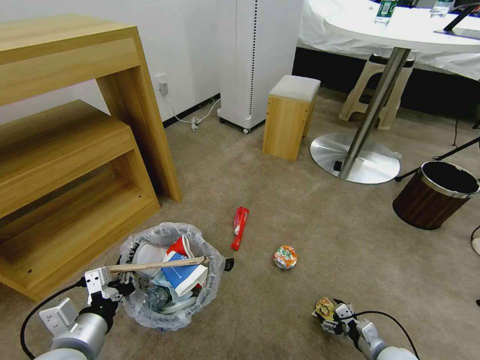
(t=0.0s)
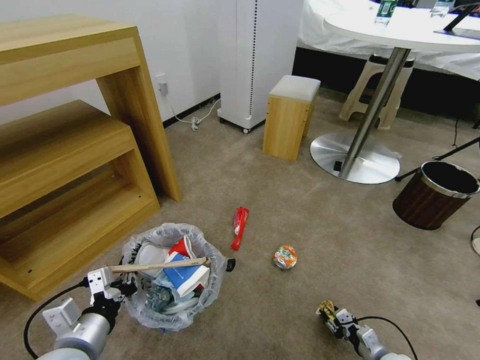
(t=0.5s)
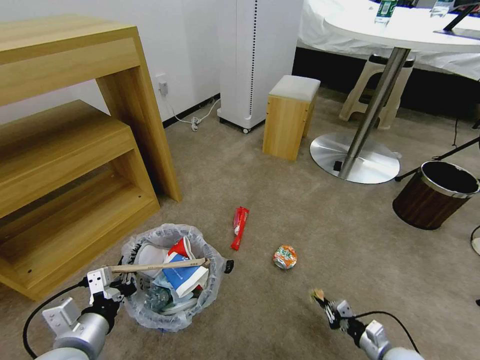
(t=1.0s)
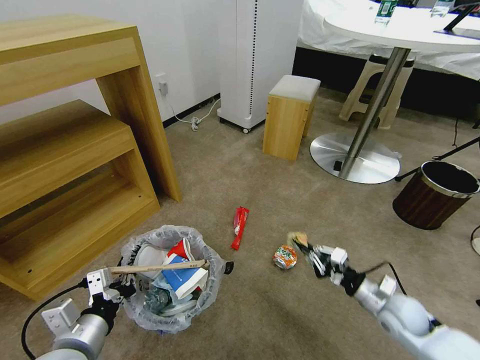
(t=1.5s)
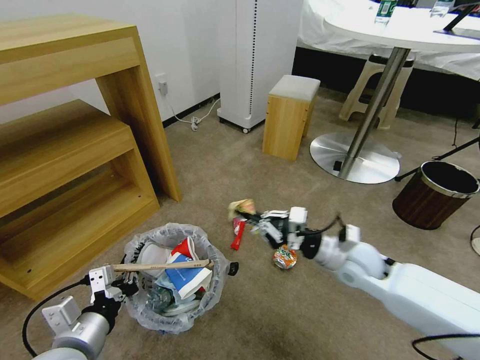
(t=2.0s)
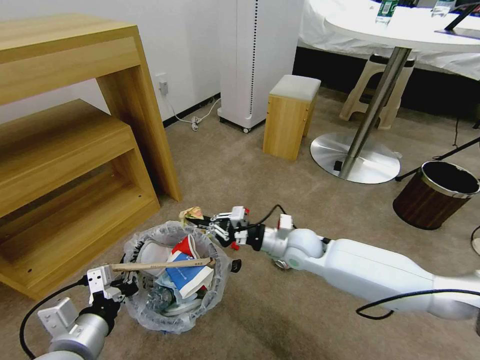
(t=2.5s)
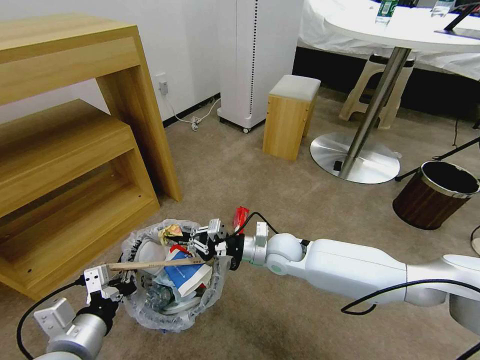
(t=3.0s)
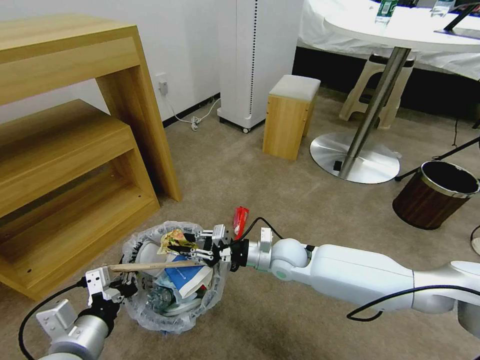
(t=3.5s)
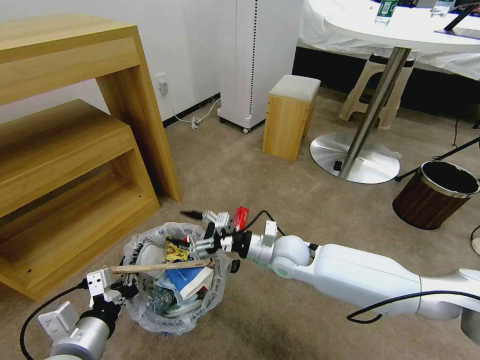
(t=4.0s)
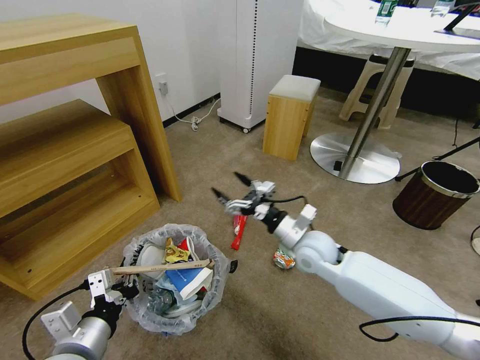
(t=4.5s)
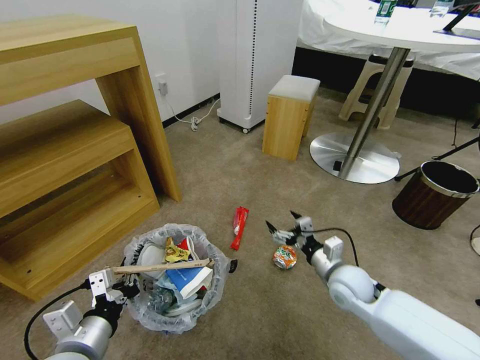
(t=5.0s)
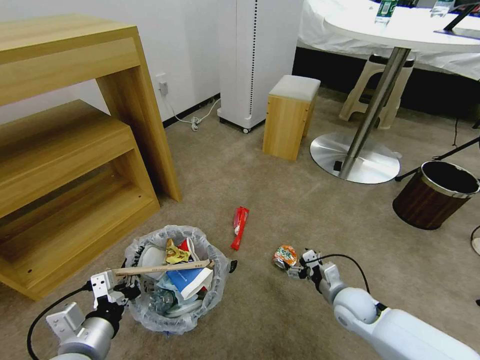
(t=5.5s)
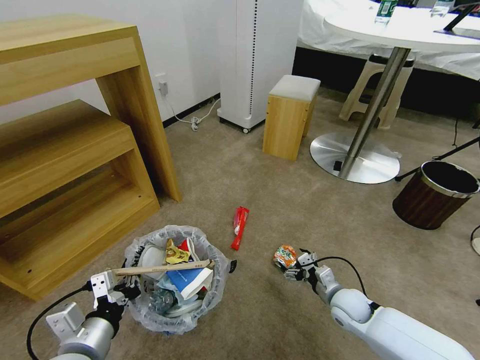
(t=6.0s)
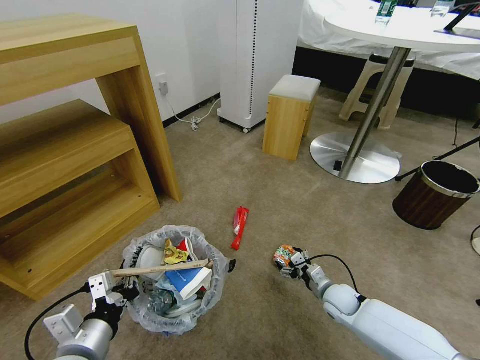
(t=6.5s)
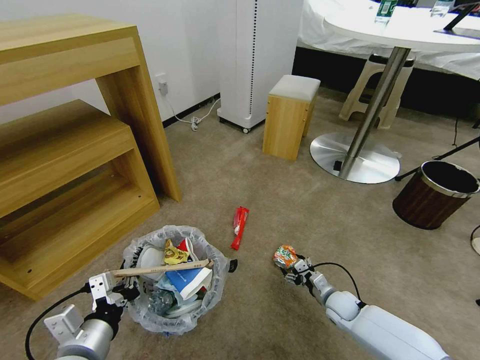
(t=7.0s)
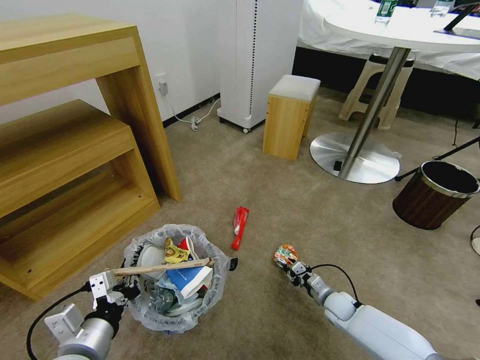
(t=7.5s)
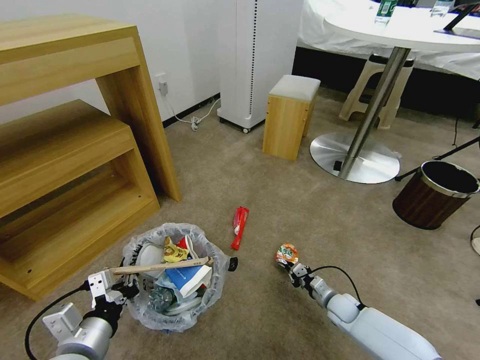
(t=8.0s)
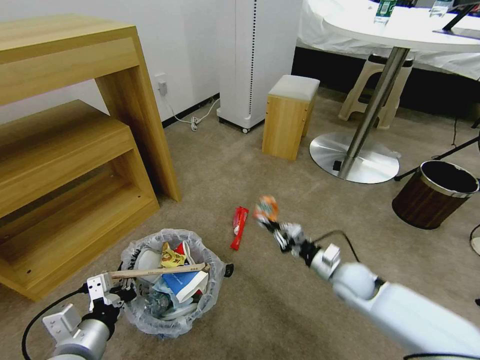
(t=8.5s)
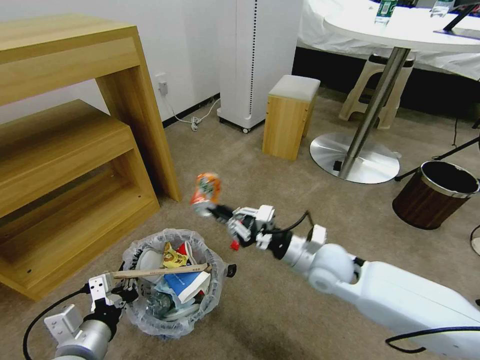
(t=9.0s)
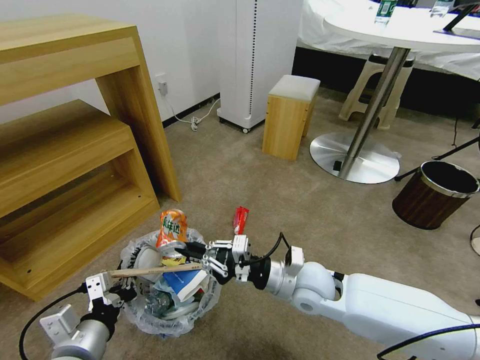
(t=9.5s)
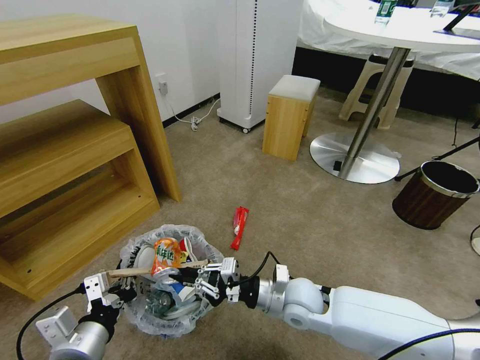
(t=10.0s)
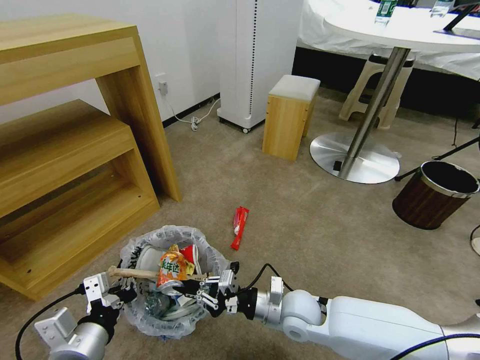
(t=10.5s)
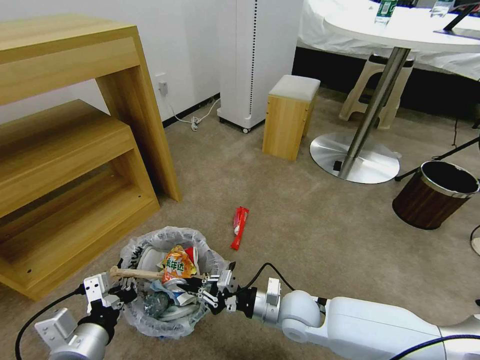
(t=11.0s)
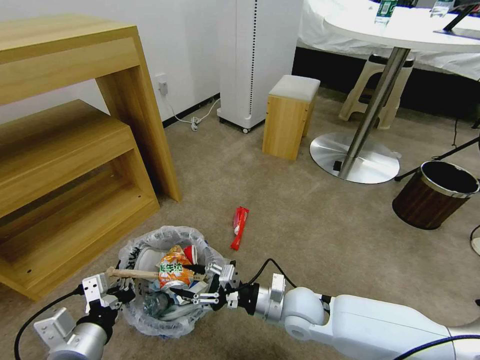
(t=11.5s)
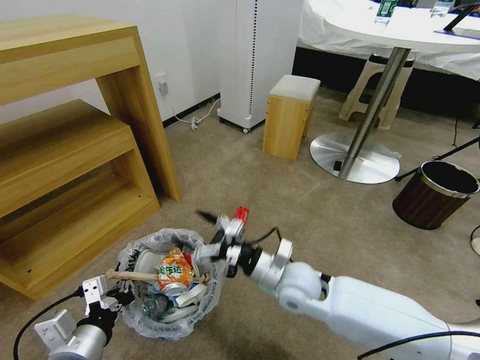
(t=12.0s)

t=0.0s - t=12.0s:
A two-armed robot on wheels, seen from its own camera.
Task of the whole recording: Pick up the trash bin and place the garbage on the floor into it.
t=0.0s - t=2.0s: The right gripper shifts approximately 35 cm upward, forward and to the left, and closes its fingers.
t=2.0s - t=4.0s: The right gripper moves to the left, approximately 15 cm, and opens its fingers.
t=4.0s - t=6.0s: The right gripper shifts roughly 25 cm to the right, downward and backward.
t=6.0s - t=8.0s: The right gripper travels downward by approximately 10 cm, and closes.
t=8.0s - t=10.0s: The right gripper goes about 30 cm upward and to the left.
t=10.0s - t=12.0s: The right gripper opens its fingers.

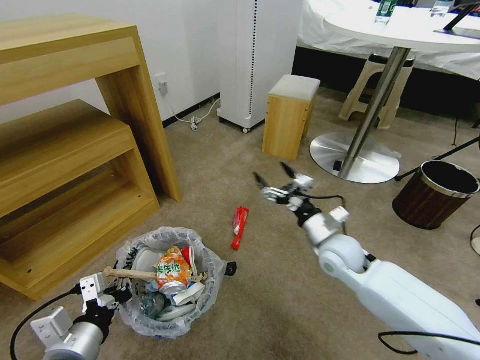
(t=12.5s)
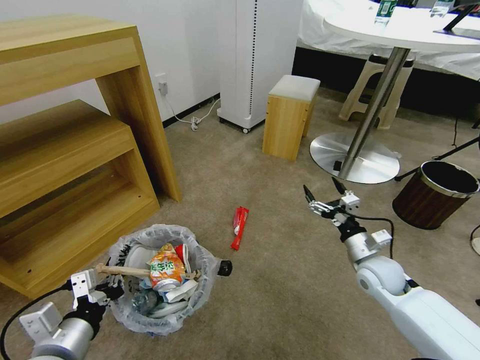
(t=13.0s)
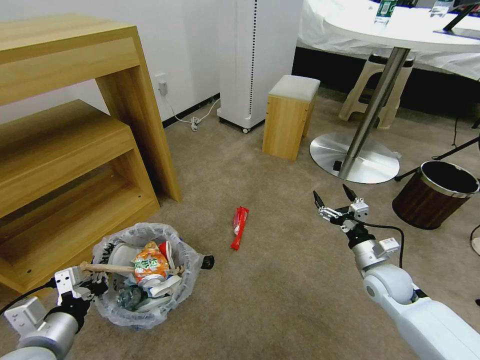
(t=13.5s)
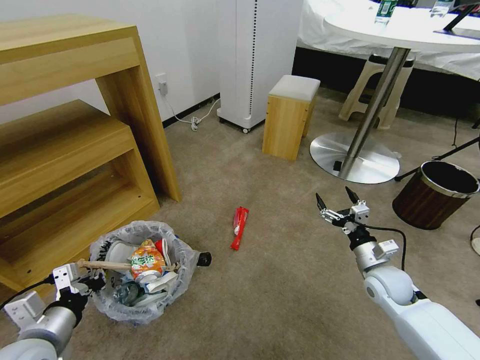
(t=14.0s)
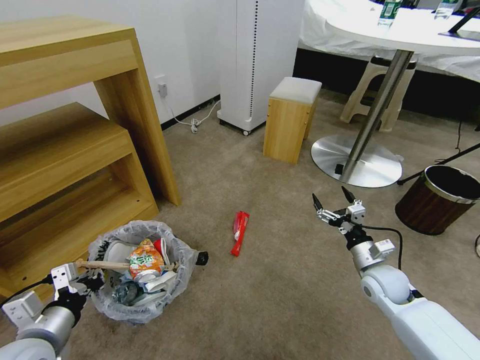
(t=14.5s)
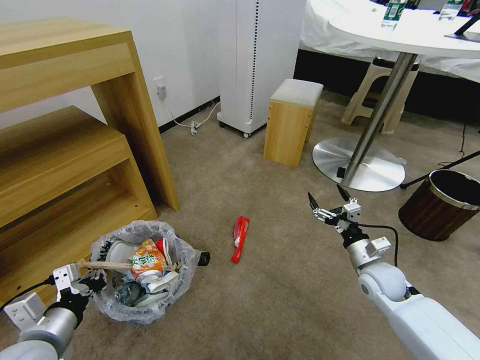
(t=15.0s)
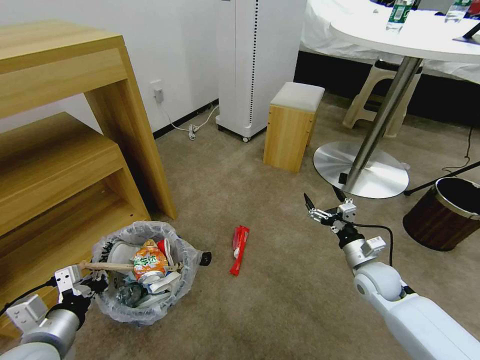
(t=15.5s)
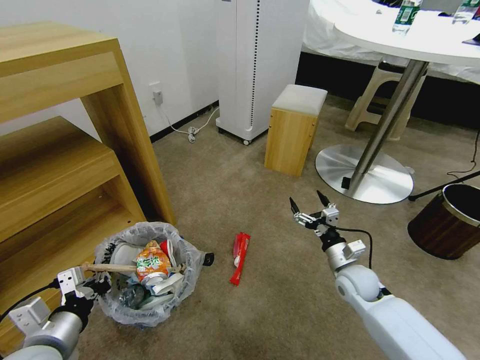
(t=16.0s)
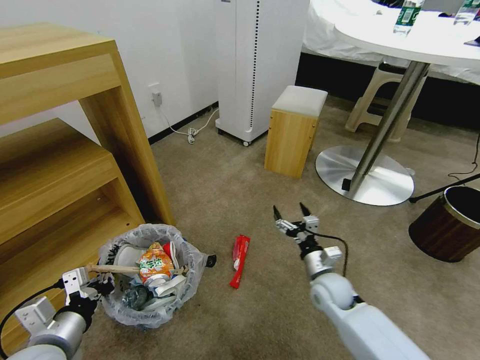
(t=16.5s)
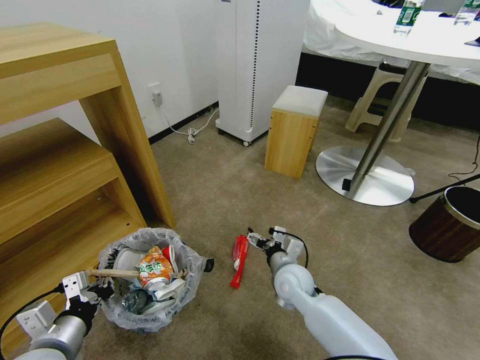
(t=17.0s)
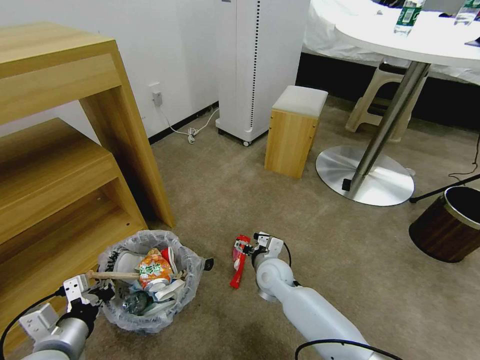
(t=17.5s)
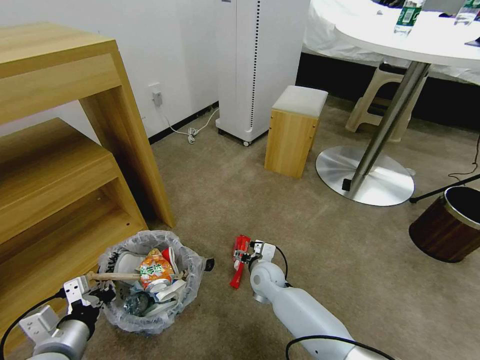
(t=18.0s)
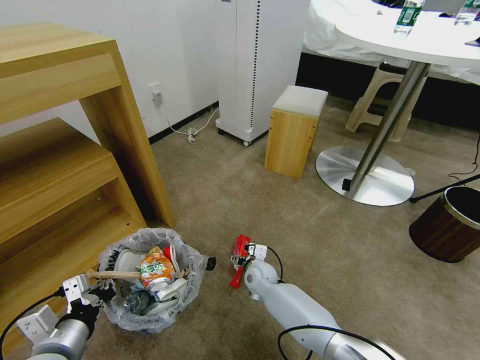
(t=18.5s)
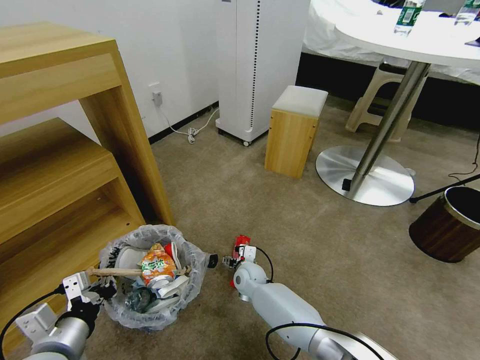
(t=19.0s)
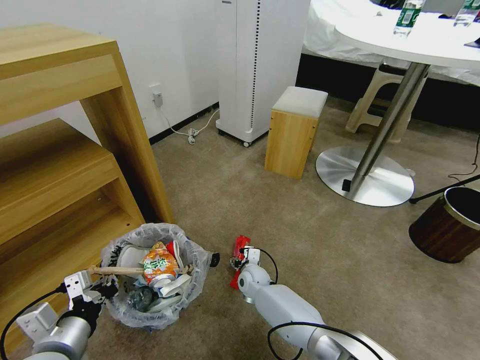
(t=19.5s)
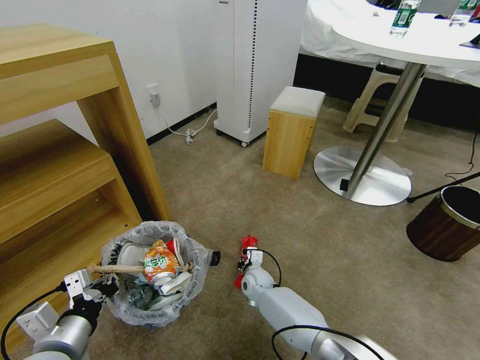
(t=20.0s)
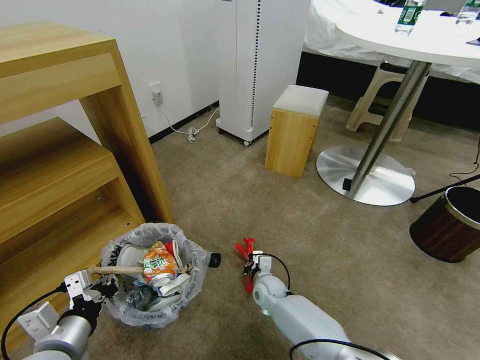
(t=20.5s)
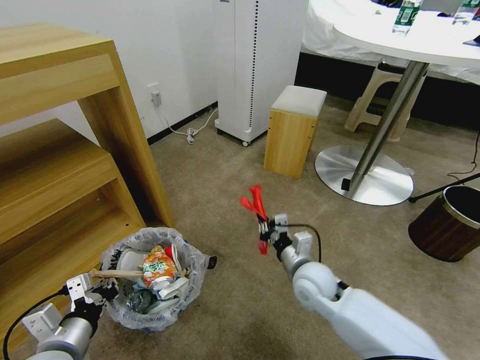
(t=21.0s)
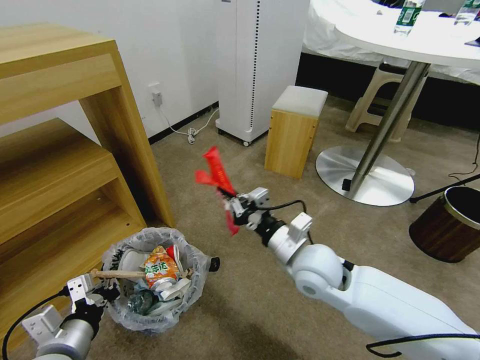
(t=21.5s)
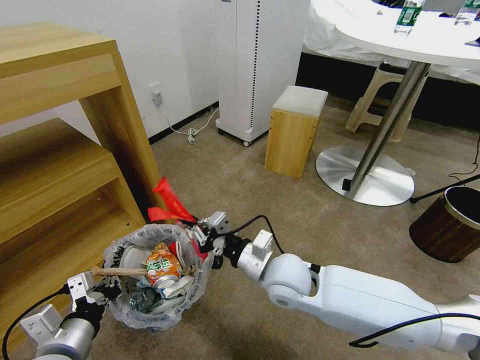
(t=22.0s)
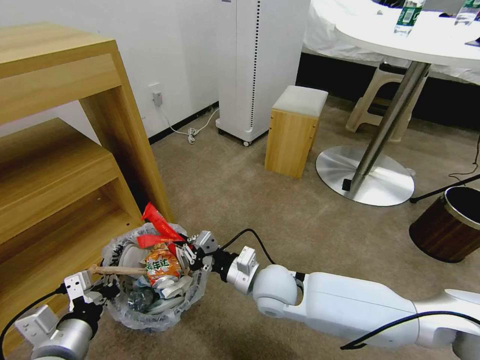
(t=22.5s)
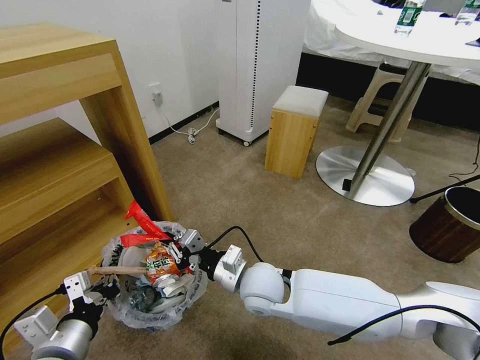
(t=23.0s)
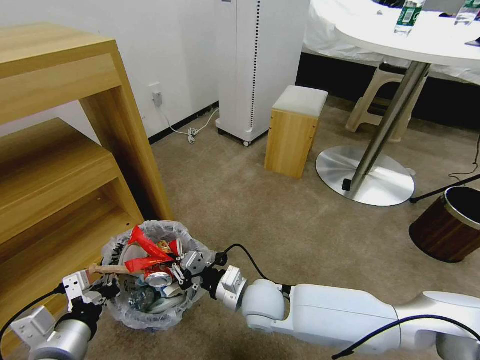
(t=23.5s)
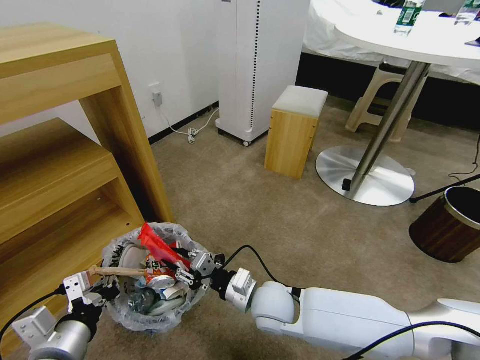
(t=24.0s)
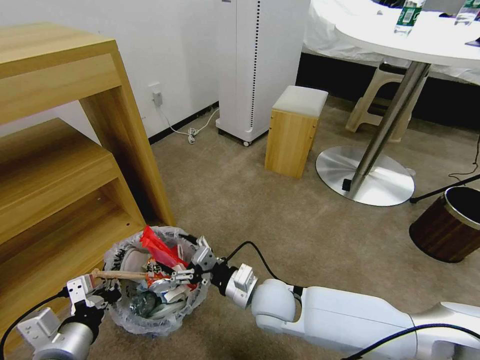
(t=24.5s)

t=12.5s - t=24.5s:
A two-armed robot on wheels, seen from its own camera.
Task of the whole recording: Pick up the trash bin and place the garbage on the floor into it.
t=12.5s - t=14.5s: The left gripper heads to the left, covering about 5 cm, while the right gripper shifts some 15 cm to the right and downward.
t=14.5s - t=16.5s: The right gripper travels to the left by some 10 cm.
t=16.5s - t=18.5s: The right gripper shifts some 20 cm to the left, downward and forward.
t=18.5s - t=20.5s: The right gripper changes place by approximately 5 cm, and closes its fingers.
t=20.5s - t=22.5s: The right gripper goes approximately 20 cm upward.
t=22.5s - t=24.5s: The right gripper opens.

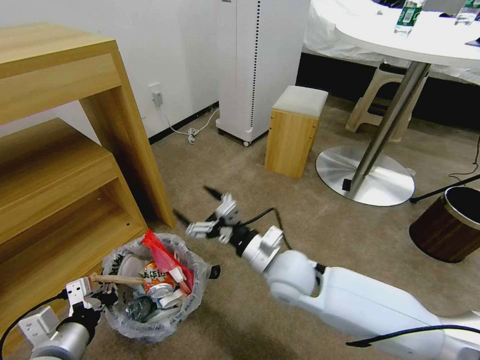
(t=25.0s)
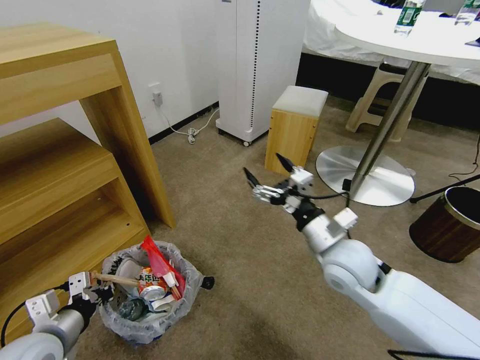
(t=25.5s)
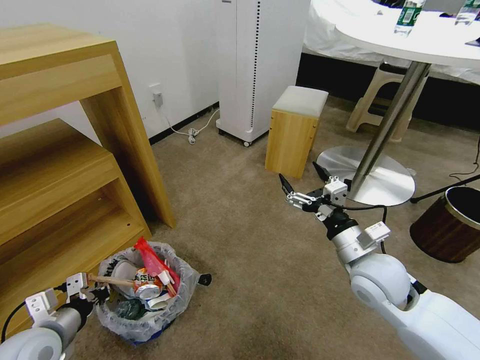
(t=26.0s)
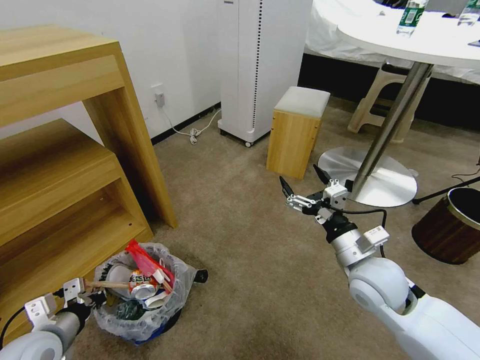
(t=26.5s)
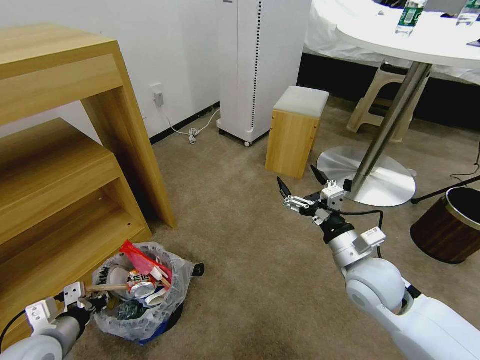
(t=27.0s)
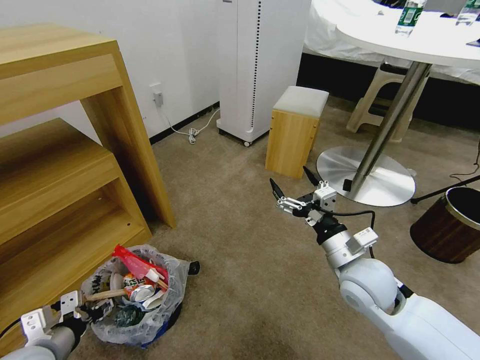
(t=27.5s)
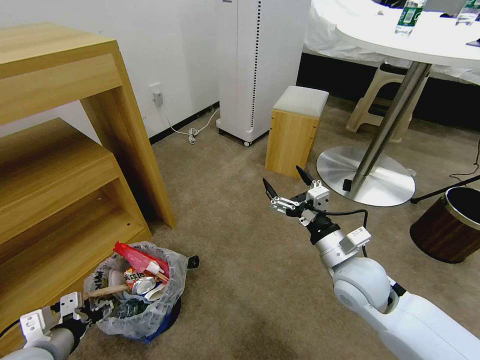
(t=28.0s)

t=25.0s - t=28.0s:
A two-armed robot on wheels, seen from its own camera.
Task of the whole recording: Pick up the trash bin and place the garbage on the floor into it.
t=25.0s - t=26.5s: The right gripper is displaced to the right by about 15 cm. Meanwhile the left gripper travels to the left by about 5 cm.
t=26.5s - t=28.0s: The left gripper opens its fingers.
